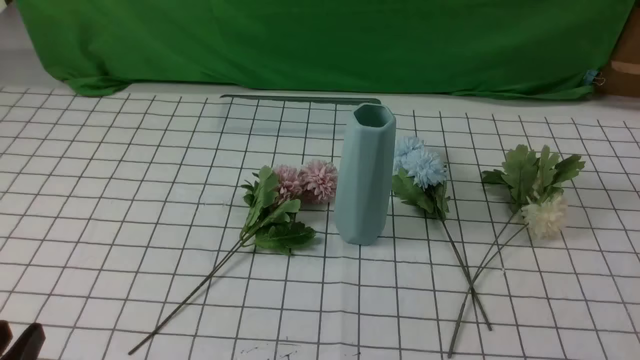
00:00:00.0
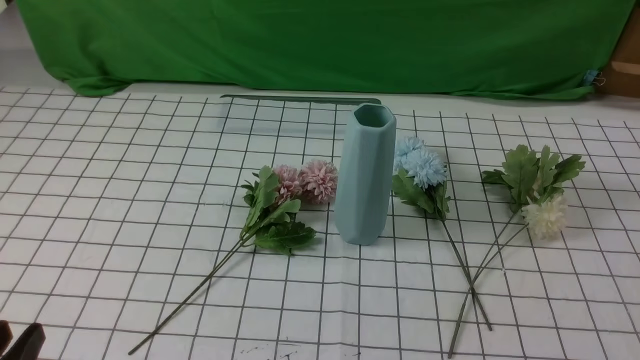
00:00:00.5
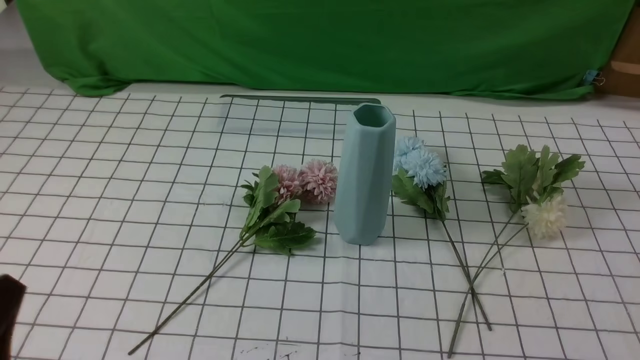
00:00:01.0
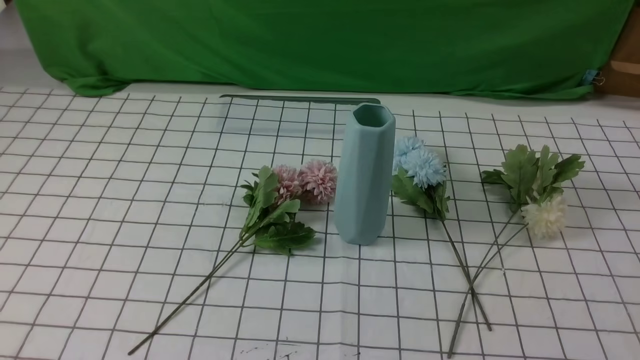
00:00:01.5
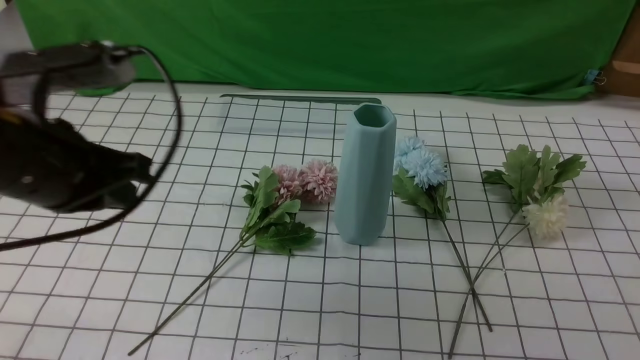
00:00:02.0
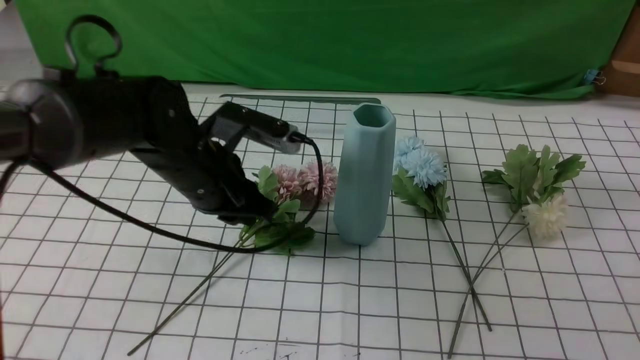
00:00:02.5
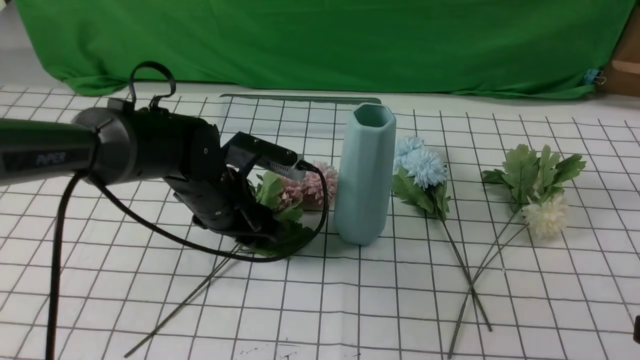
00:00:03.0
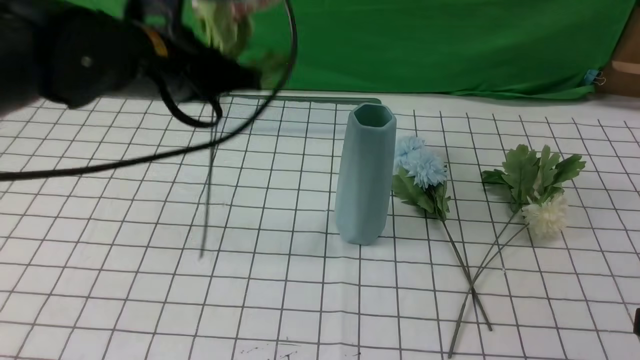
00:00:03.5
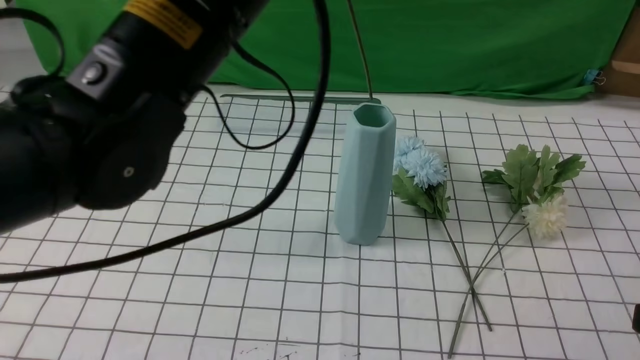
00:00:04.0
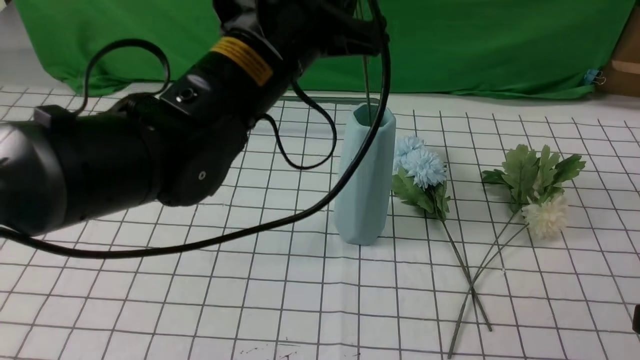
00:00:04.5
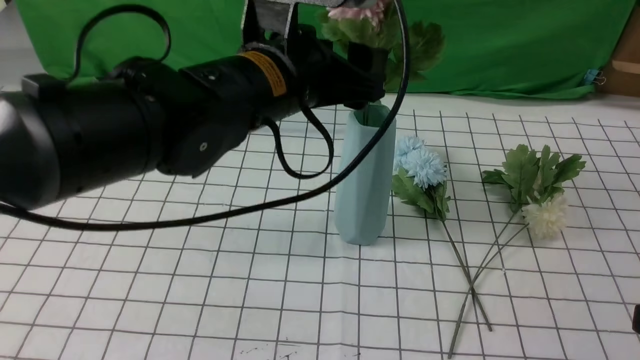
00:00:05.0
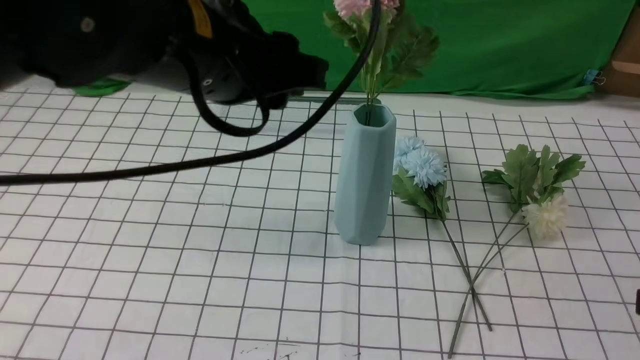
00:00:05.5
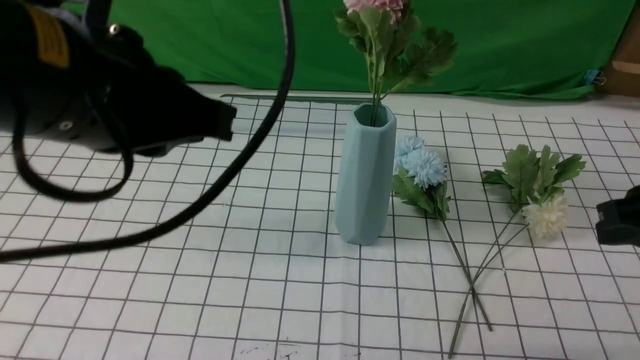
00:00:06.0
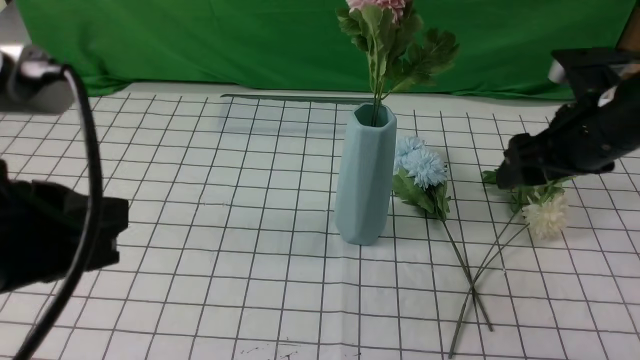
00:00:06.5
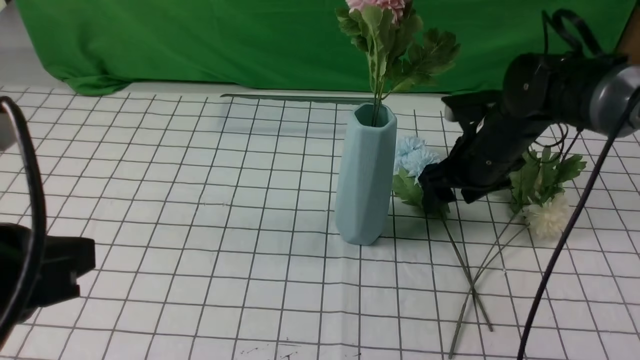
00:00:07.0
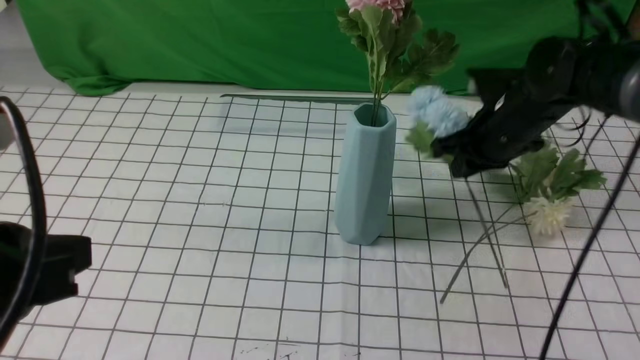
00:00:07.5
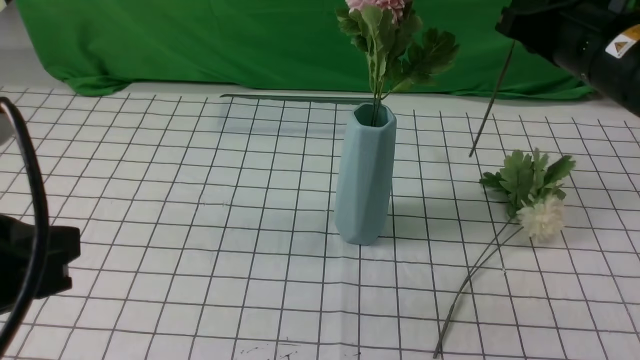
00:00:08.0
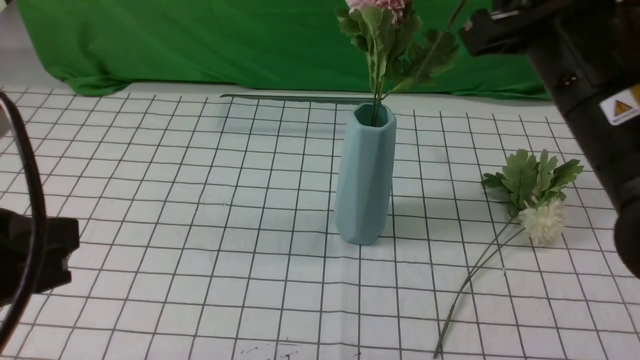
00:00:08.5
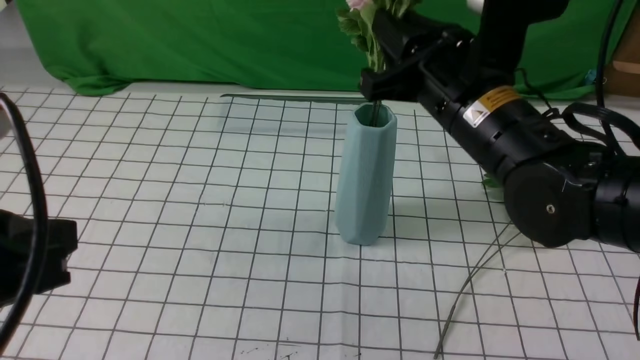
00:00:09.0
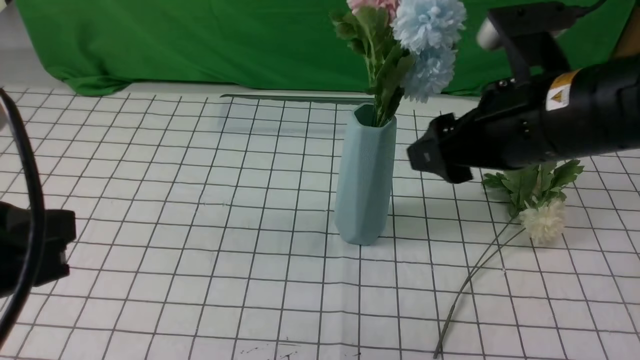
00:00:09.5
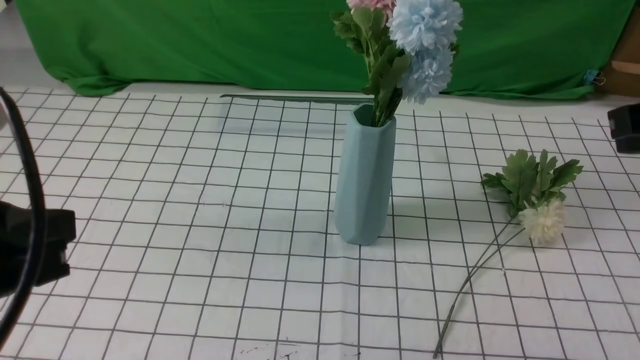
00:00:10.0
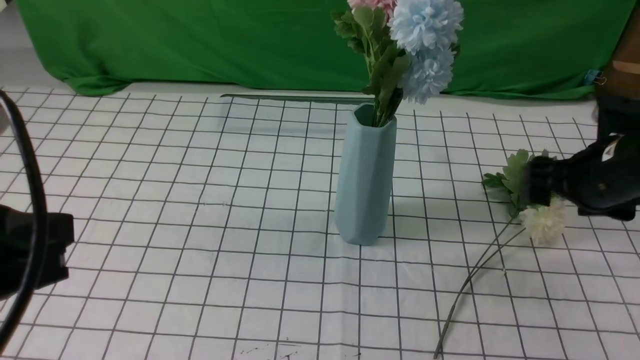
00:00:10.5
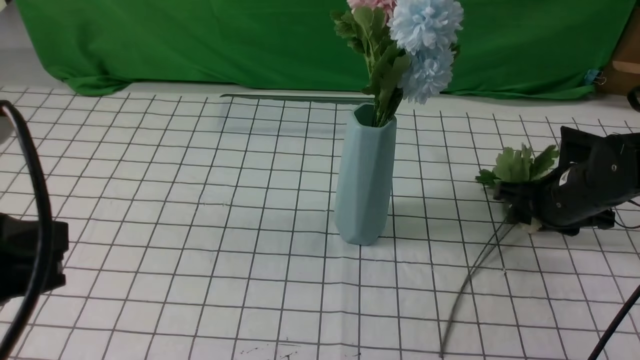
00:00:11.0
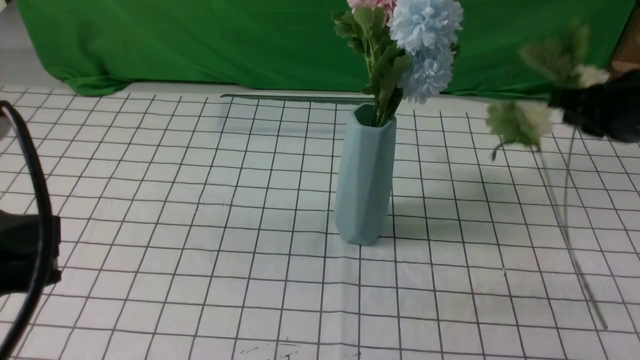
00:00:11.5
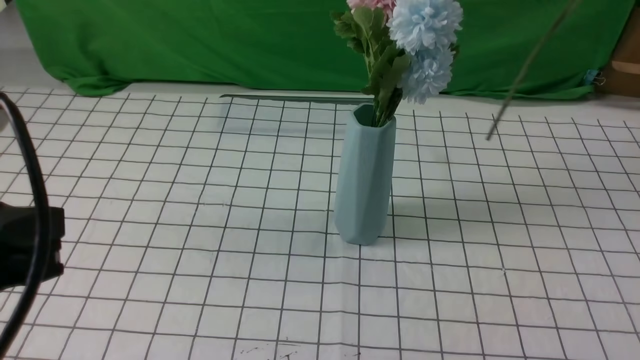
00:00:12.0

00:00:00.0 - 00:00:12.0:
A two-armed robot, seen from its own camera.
Task of the whole recording: insert the flowers into the vase on the table with the white tablecloth.
Step, 00:00:00.0 - 00:00:03.0: use the left arm to grab a bunch of fresh flowers.
Step, 00:00:03.5 - 00:00:05.0: use the left arm to insert the flowers into the vase.
Step, 00:00:05.5 - 00:00:07.0: use the right arm to grab a bunch of fresh flowers.
Step, 00:00:07.5 - 00:00:09.5: use the right arm to insert the flowers into the vase.
Step, 00:00:10.0 - 00:00:11.0: use the right arm to grab a bunch of fresh flowers.
00:00:00.0 - 00:00:02.0: The left gripper goes approximately 25 cm forward and upward, and closes up.
00:00:02.0 - 00:00:04.0: The right gripper travels upward and forward by about 10 cm, and opens its fingers. Meanwhile the left gripper travels to the right and upward by approximately 15 cm, and opens and closes again.
00:00:04.0 - 00:00:06.0: The left gripper travels backward and to the left by approximately 10 cm, and opens, then closes again. Meanwhile the right gripper travels forward by about 15 cm, and closes its fingers.
00:00:06.0 - 00:00:08.0: The right gripper shifts about 10 cm forward and to the left, and opens, then closes once more. The left gripper moves backward and to the left, about 10 cm.
00:00:08.0 - 00:00:10.0: The right gripper shifts roughly 5 cm backward, reaches roughly 10 cm to the left, then returns, and opens and closes again.
00:00:10.0 - 00:00:12.0: The right gripper travels downward and back again, some 20 cm each way, and opens and closes again.

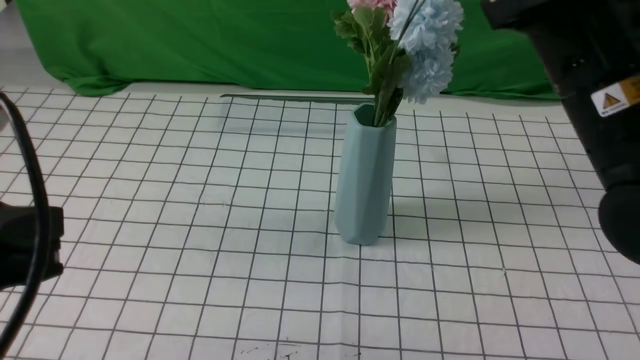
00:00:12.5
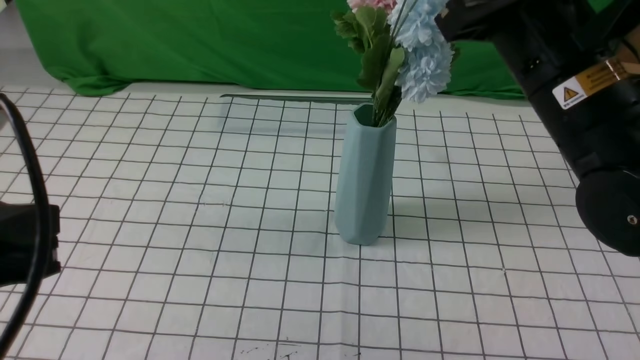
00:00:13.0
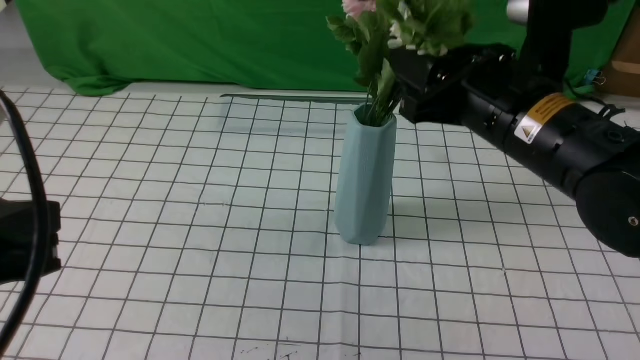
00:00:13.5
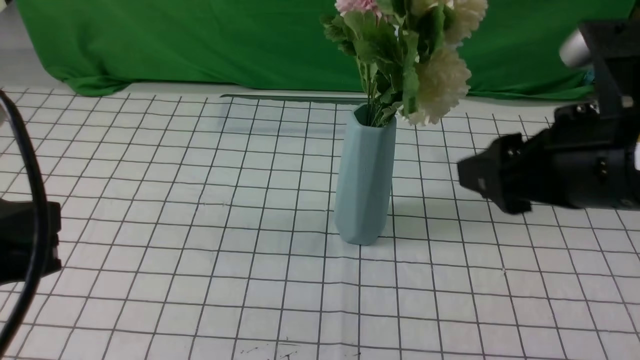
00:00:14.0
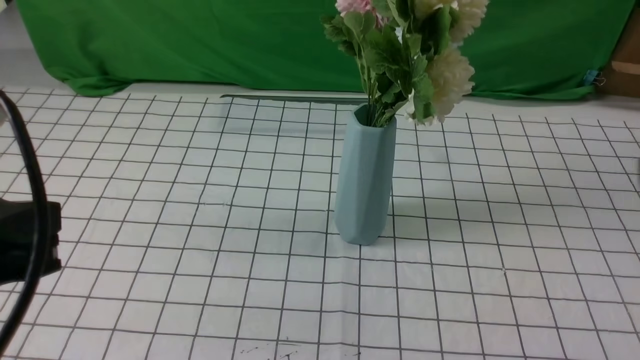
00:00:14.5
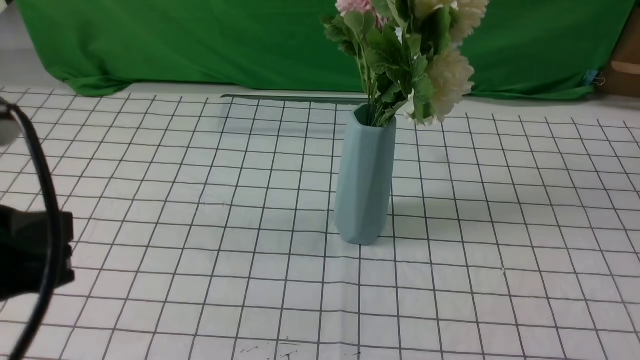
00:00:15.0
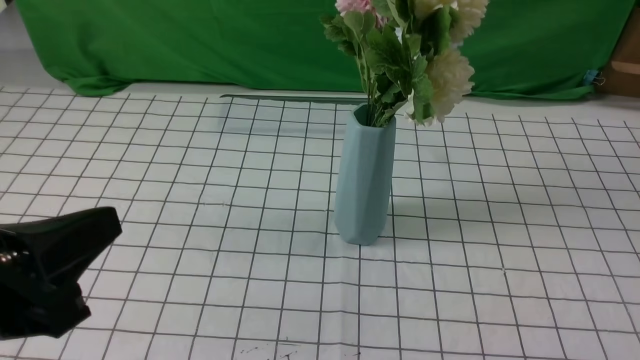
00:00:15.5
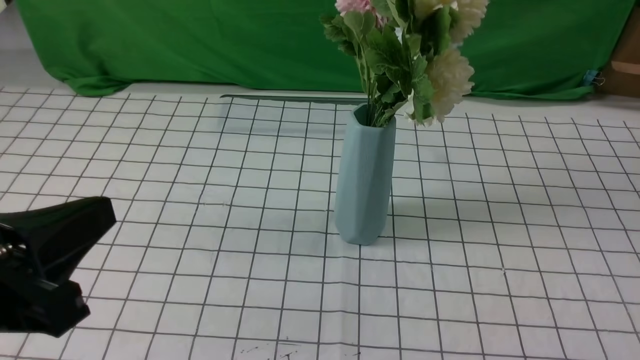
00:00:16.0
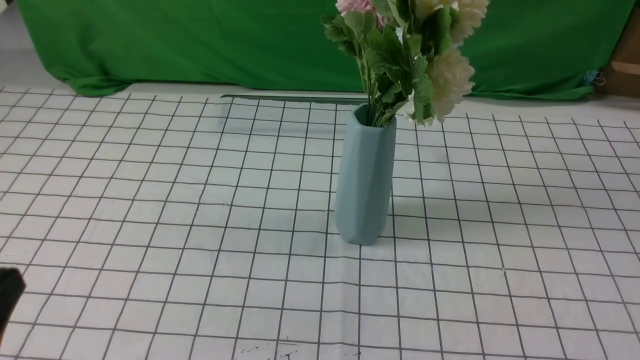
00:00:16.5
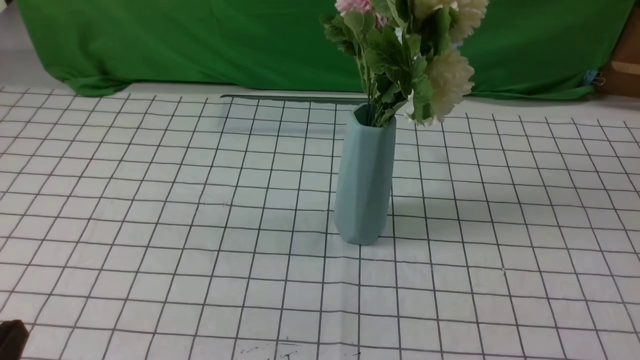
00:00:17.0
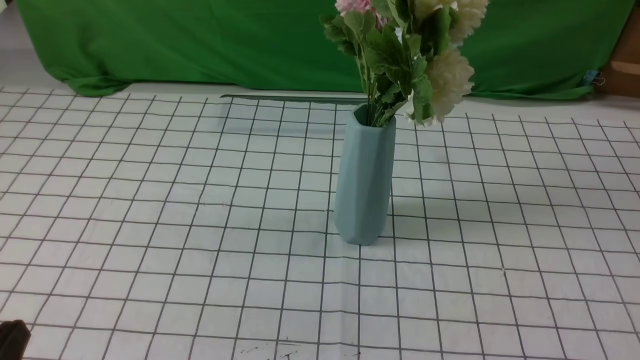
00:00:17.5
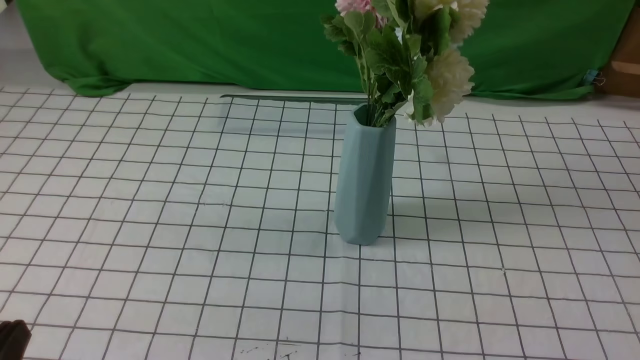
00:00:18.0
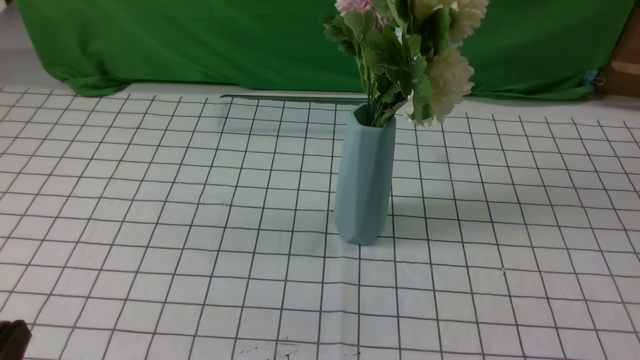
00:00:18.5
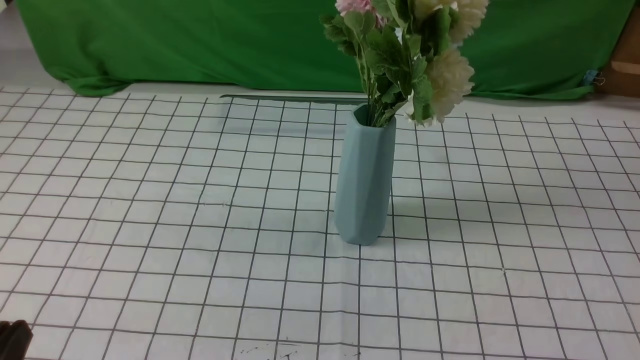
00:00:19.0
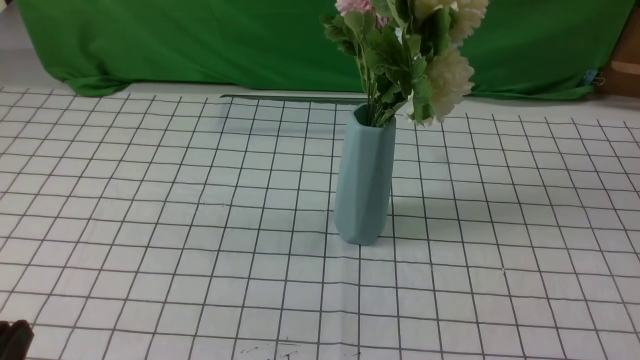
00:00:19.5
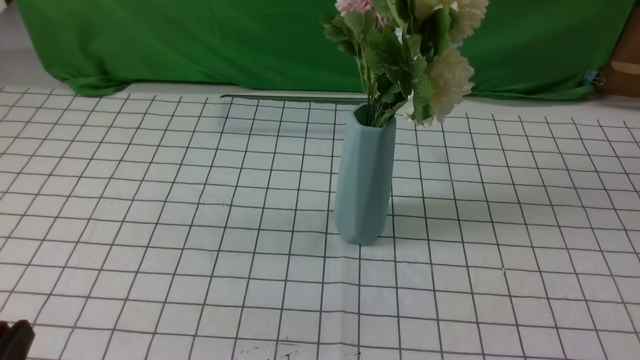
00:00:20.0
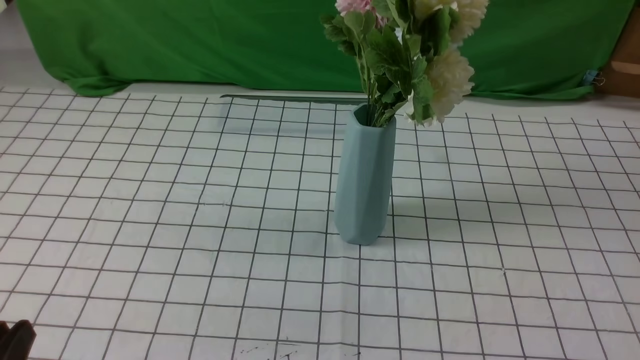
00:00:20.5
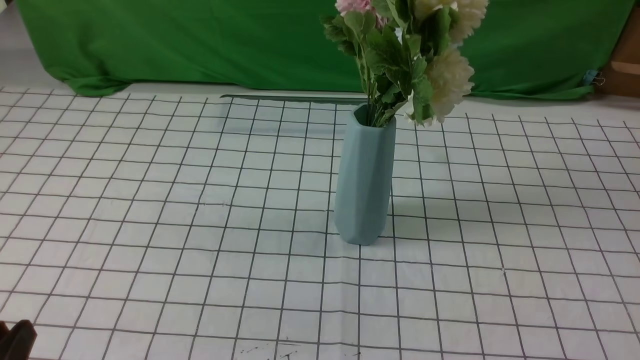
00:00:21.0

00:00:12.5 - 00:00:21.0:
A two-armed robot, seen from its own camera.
Task of the whole recording: insert the flowers into the vase on the table with the white tablecloth.
00:00:12.5 - 00:00:14.5: The right gripper shifts about 20 cm backward and to the right, and opens and closes again.
00:00:14.5 - 00:00:16.5: The left gripper moves downward, roughly 10 cm.
00:00:16.5 - 00:00:19.0: The left gripper shifts approximately 5 cm downward.
